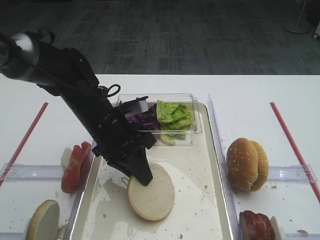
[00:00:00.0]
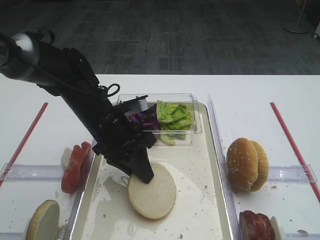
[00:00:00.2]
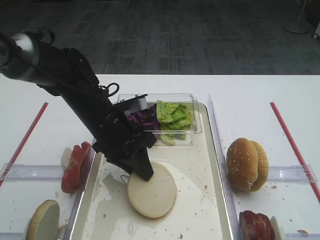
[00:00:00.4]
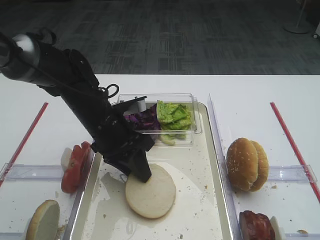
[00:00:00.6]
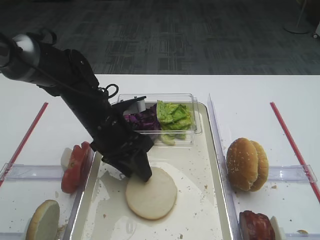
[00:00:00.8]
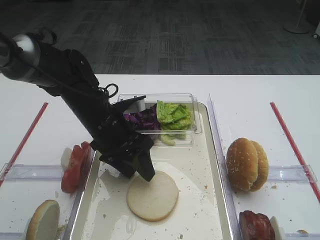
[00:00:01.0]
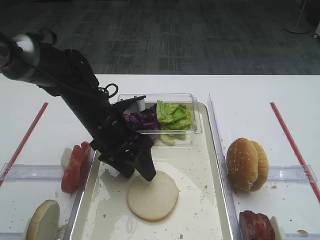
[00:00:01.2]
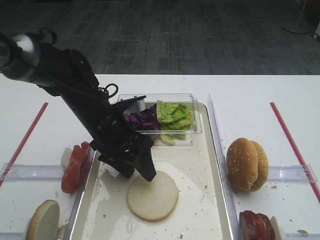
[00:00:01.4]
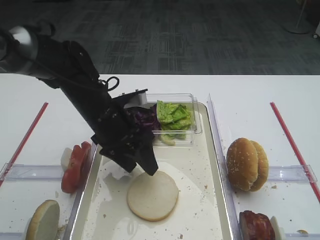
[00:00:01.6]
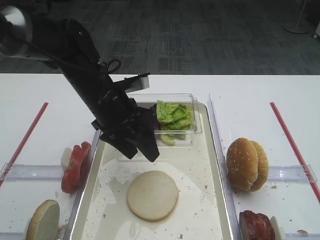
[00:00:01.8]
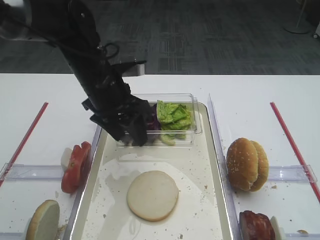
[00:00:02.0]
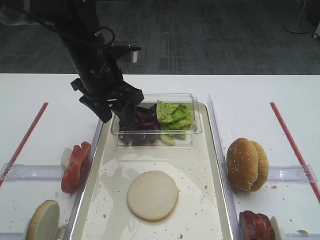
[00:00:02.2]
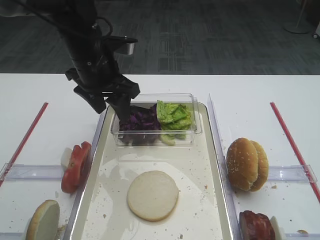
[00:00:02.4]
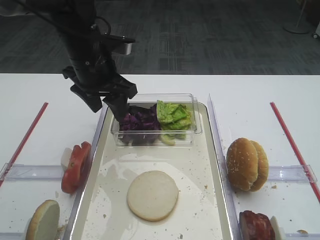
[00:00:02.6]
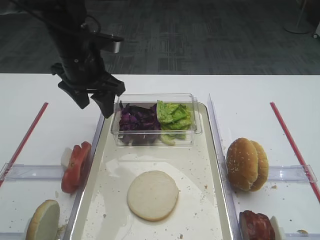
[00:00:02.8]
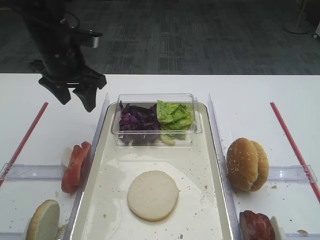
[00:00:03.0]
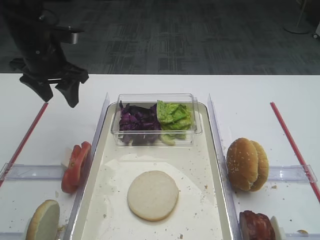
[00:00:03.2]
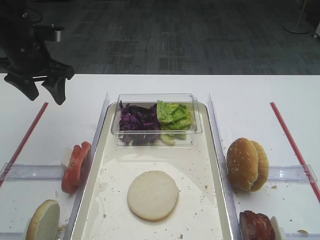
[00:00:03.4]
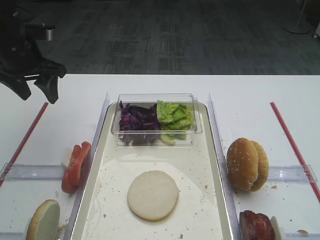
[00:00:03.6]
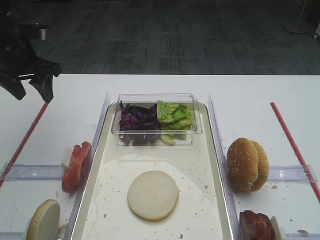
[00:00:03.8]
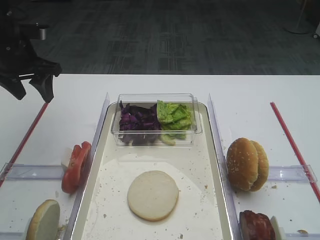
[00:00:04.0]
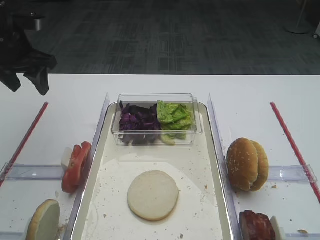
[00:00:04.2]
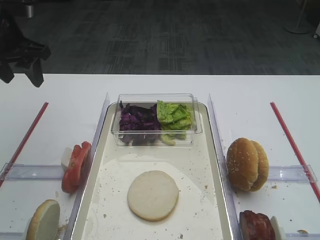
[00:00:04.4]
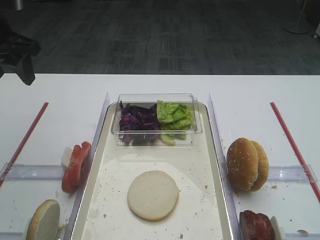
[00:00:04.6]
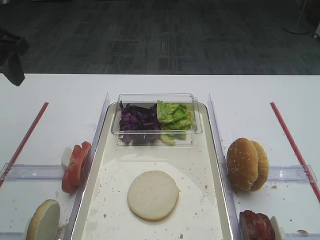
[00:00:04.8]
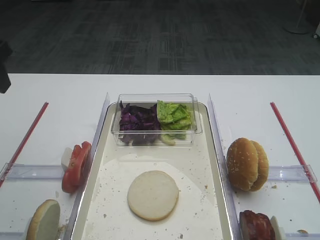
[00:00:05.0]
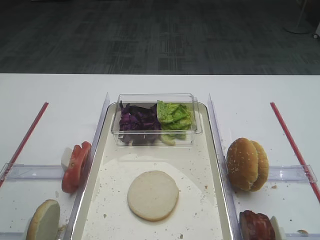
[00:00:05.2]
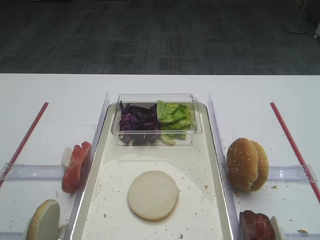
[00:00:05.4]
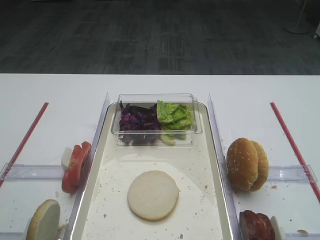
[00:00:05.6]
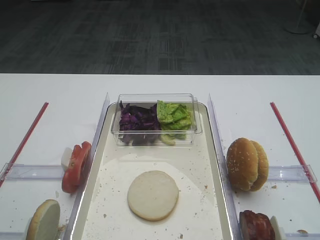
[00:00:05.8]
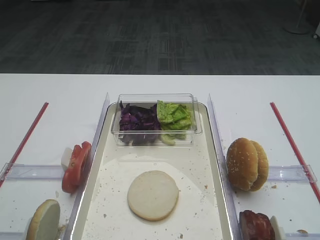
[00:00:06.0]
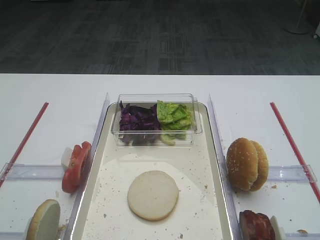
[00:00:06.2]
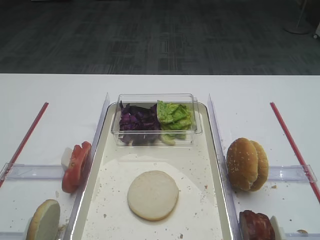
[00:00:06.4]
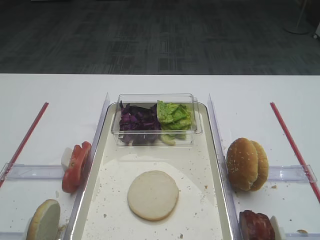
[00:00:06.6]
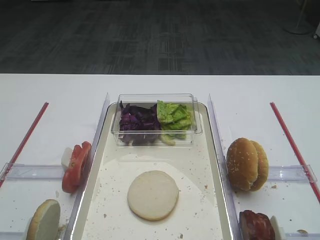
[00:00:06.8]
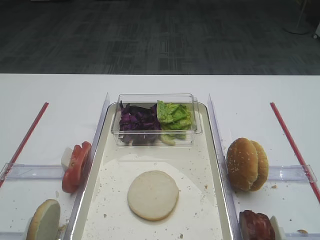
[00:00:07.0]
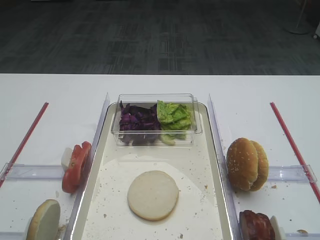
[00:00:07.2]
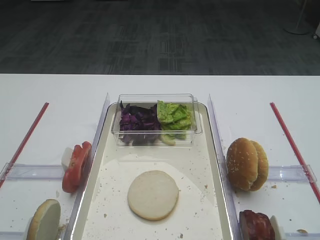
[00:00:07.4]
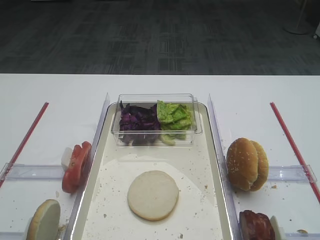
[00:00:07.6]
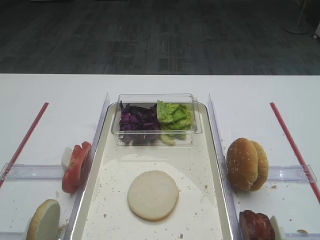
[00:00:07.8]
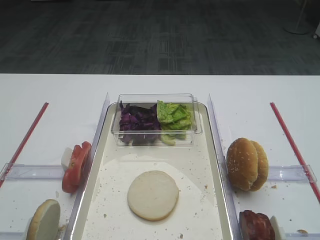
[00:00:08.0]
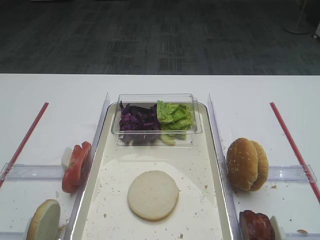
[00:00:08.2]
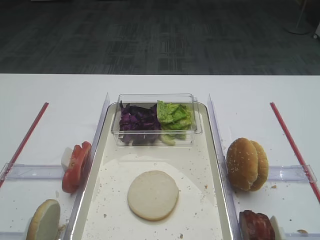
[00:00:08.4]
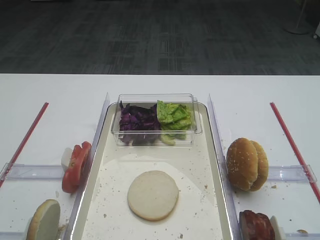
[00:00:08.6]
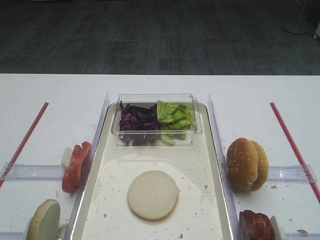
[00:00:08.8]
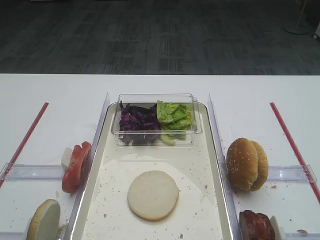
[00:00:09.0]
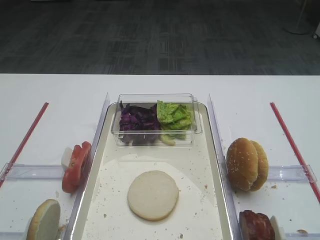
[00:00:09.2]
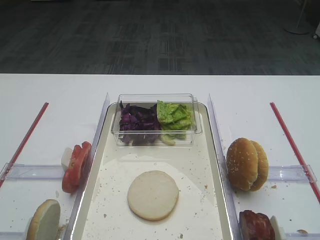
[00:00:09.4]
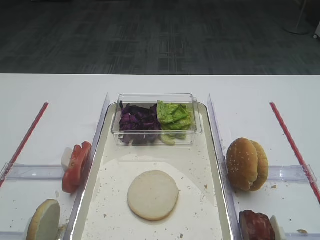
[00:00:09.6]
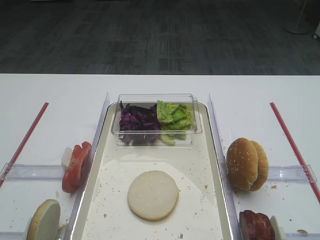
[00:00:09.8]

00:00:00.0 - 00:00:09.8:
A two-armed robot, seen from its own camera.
00:00:00.0 - 00:00:01.4: The left gripper opens.
00:00:01.4 - 00:00:02.8: The left gripper moves upward and forward, about 10 cm.
00:00:02.8 - 00:00:04.2: The left gripper is displaced to the left by approximately 15 cm.
00:00:04.2 - 00:00:05.6: The left gripper goes some 25 cm backward.
00:00:08.4 - 00:00:09.8: The two grippers keep their place.
